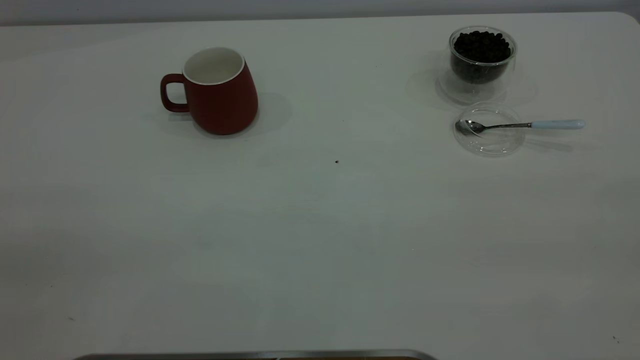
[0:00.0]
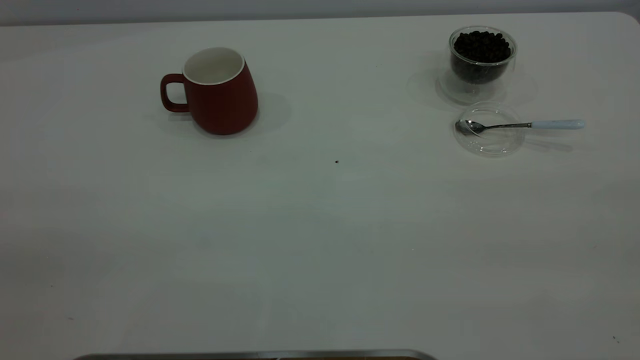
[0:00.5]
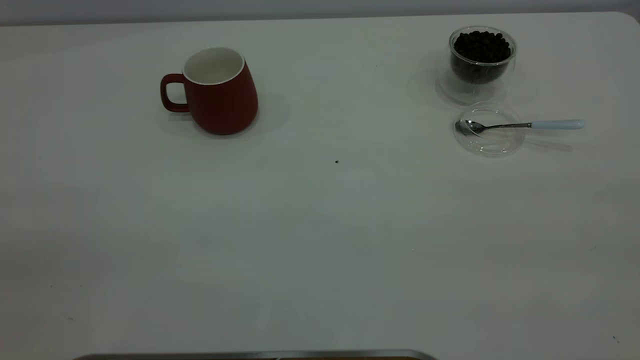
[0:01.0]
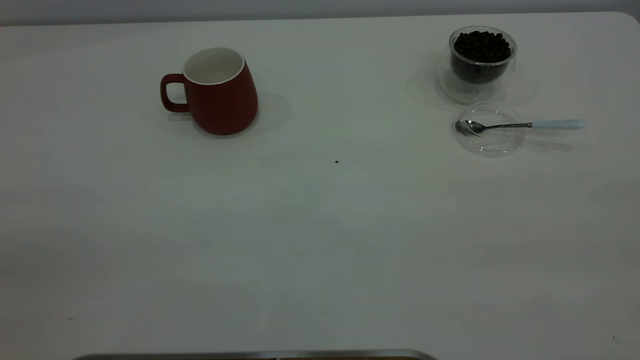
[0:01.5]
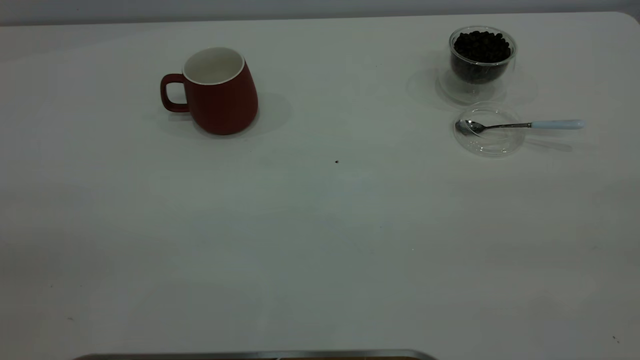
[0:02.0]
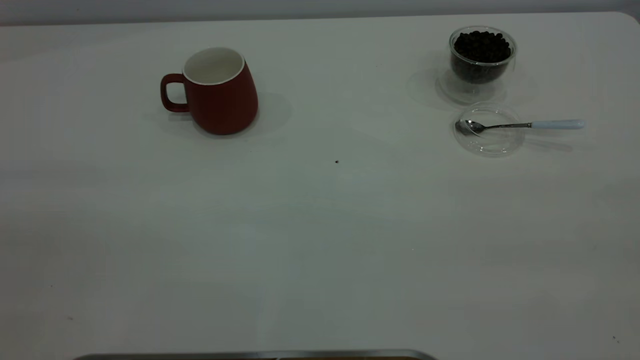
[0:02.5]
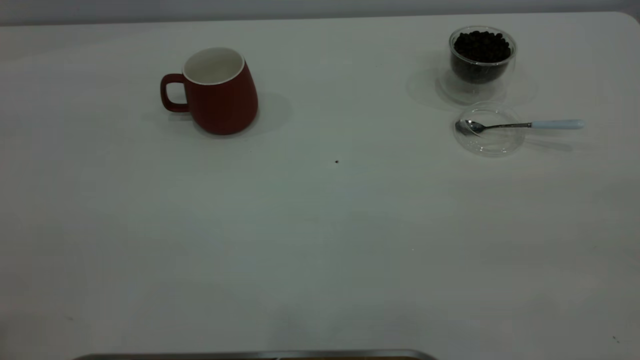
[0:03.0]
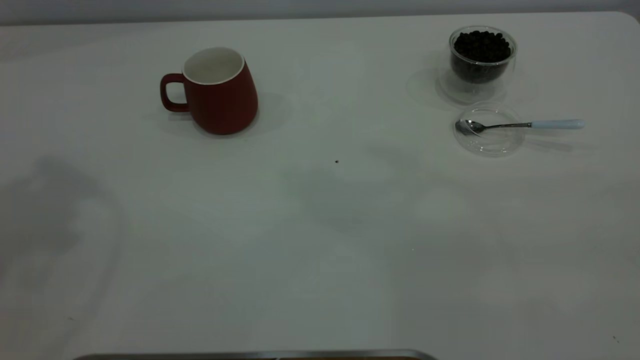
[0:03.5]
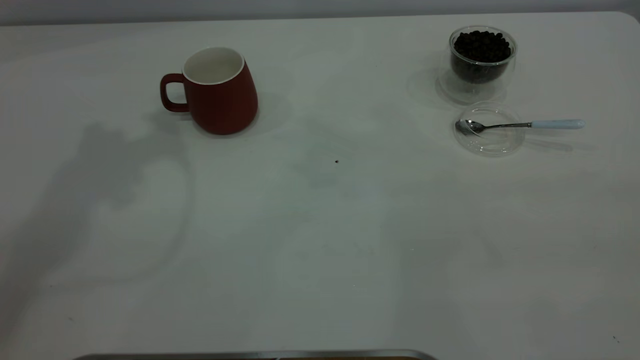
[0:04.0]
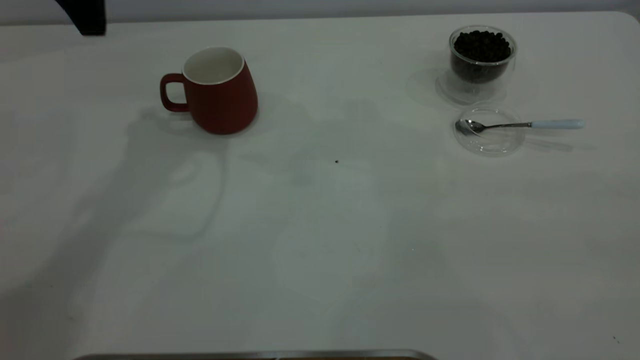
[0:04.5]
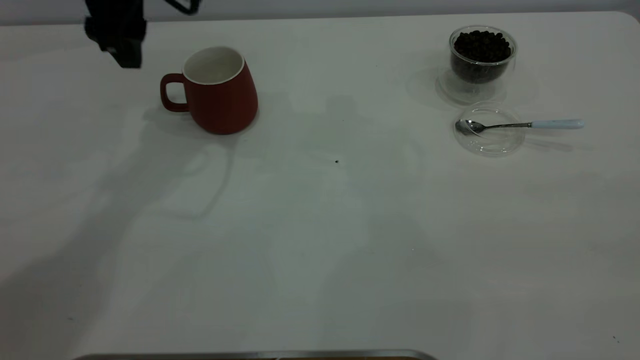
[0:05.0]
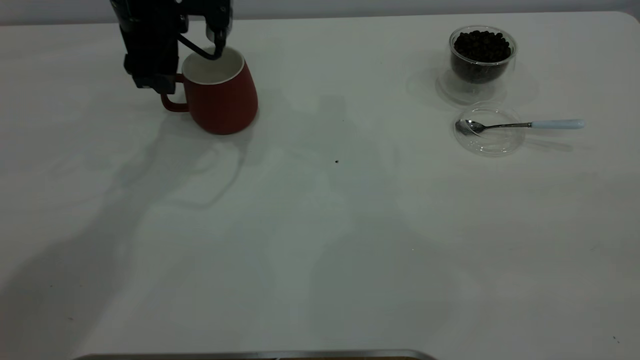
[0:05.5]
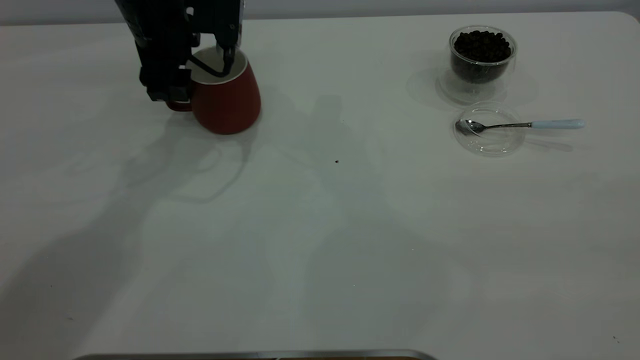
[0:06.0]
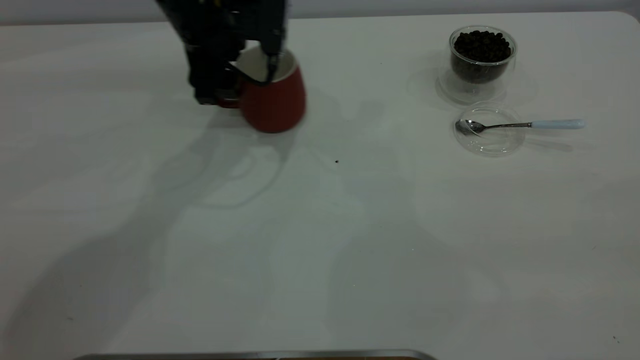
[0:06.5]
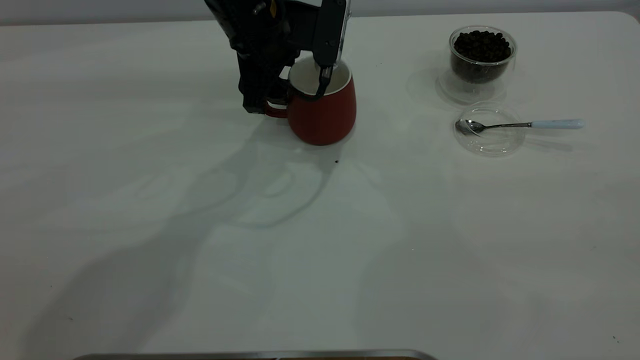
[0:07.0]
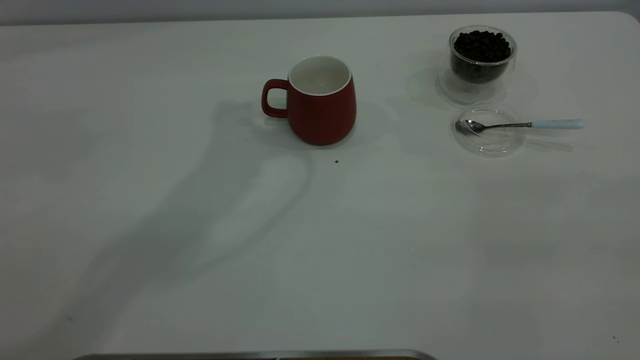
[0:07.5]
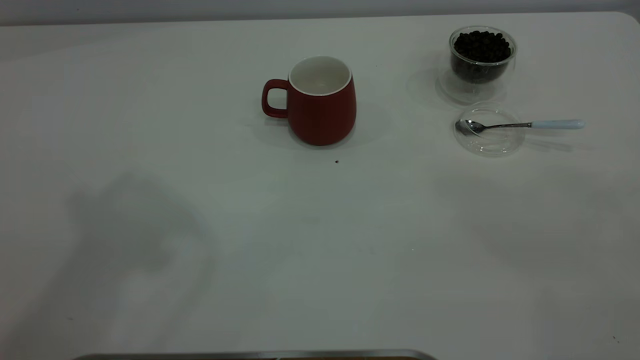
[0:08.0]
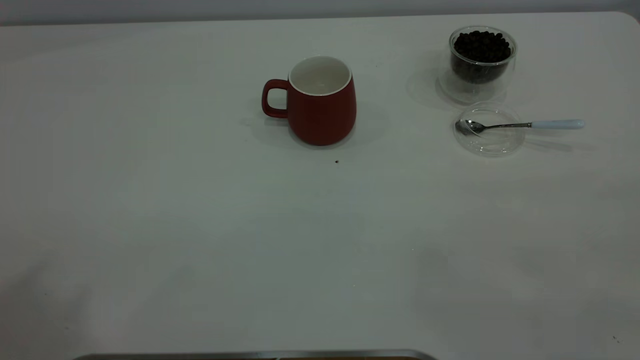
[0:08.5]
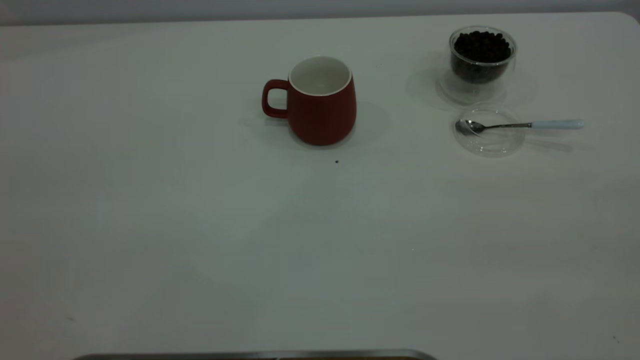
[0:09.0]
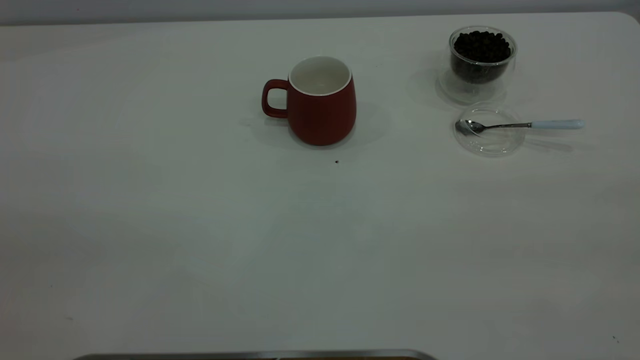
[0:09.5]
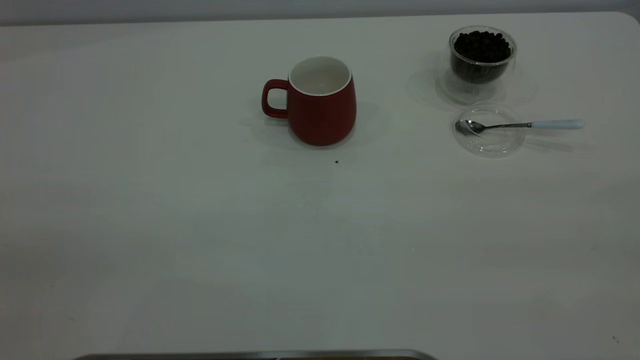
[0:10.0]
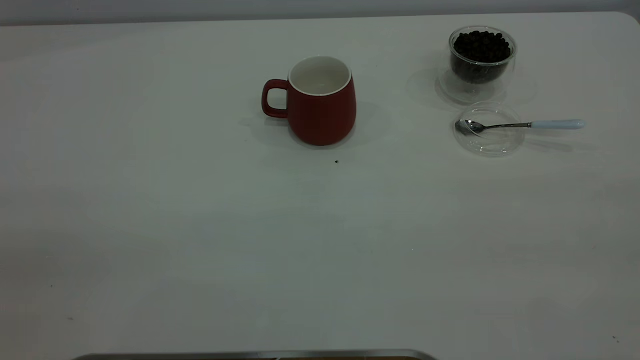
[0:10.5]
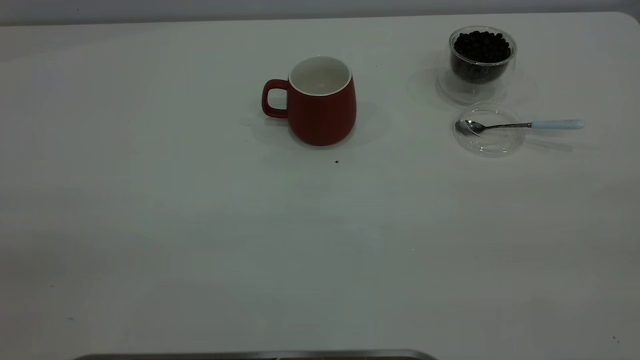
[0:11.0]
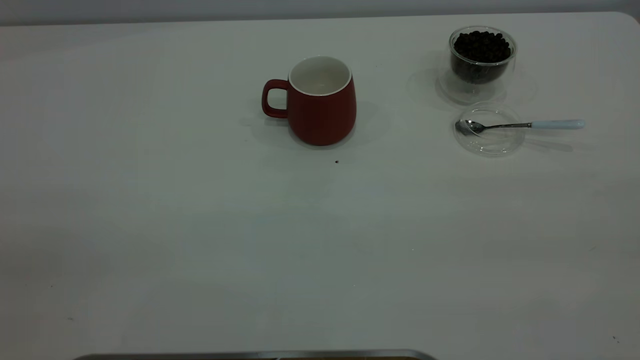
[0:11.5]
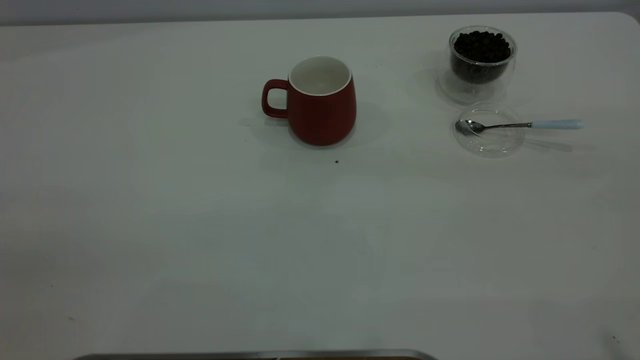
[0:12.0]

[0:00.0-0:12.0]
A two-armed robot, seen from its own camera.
Task of the whole recording: the left gripper place the red cup in the center of the table, the right gripper take the blue spoon from the cup lid and scoop out the coffee beans from the coffee cup and put them into the red cup, the right gripper put the spoon back into the cup lid.
Step, 0:00.0 to 0:07.0: Move the cup to the center of view.
0:00.0 to 0:02.0: Neither gripper changes place.
0:04.0 to 0:06.0: The left gripper goes about 25 cm downward.
0:06.0 to 0:08.0: The left gripper shifts approximately 50 cm upward and backward.

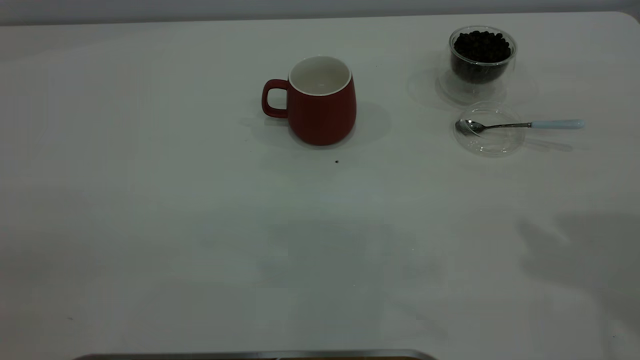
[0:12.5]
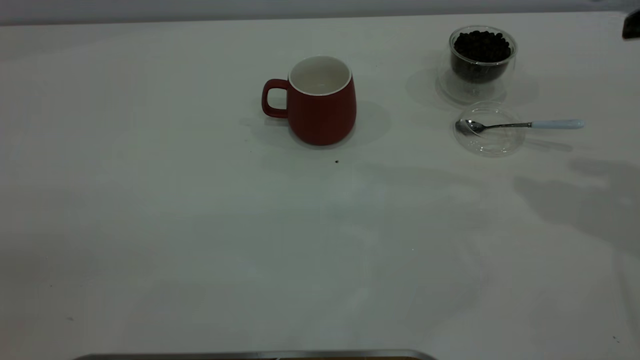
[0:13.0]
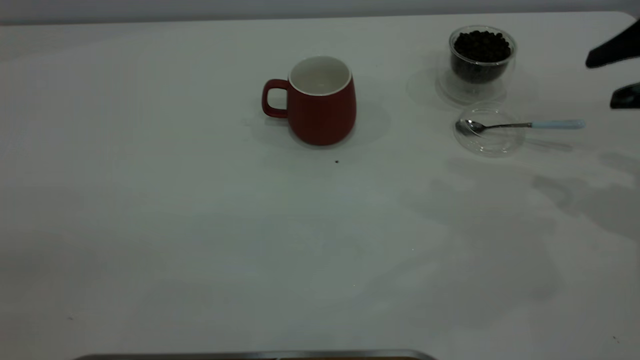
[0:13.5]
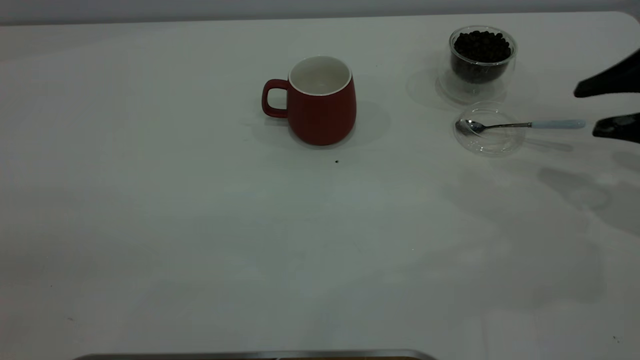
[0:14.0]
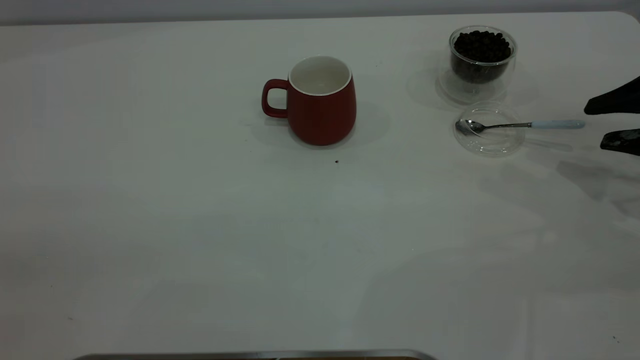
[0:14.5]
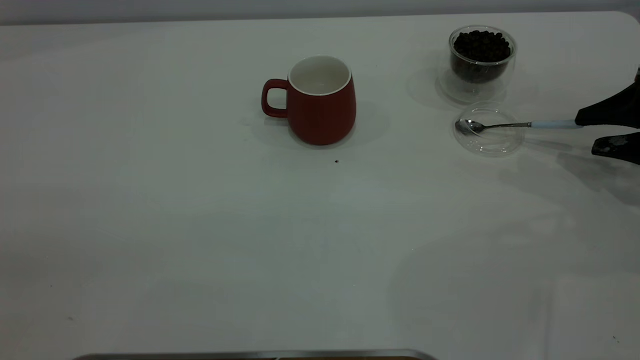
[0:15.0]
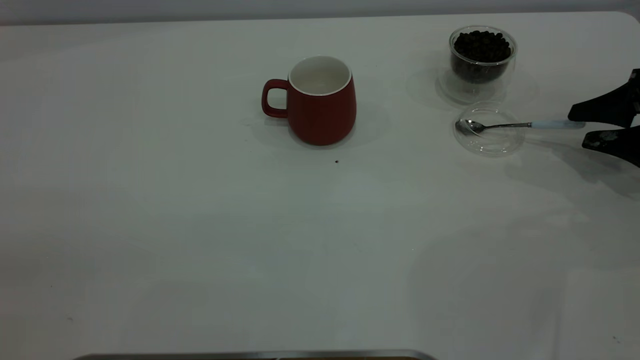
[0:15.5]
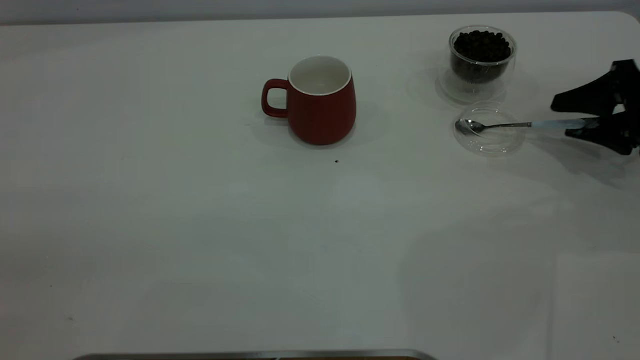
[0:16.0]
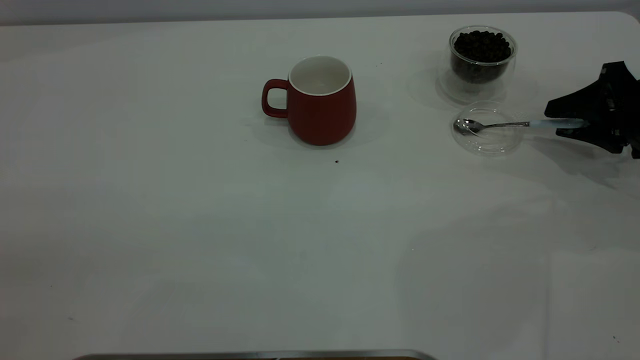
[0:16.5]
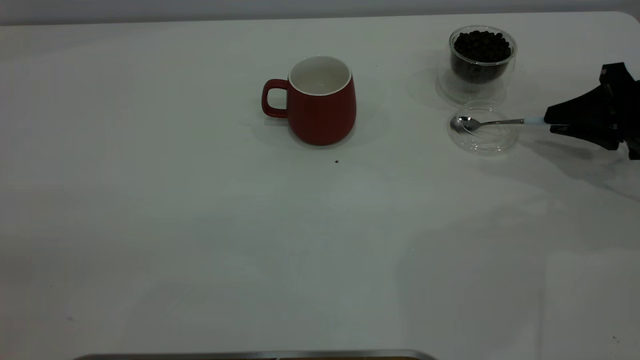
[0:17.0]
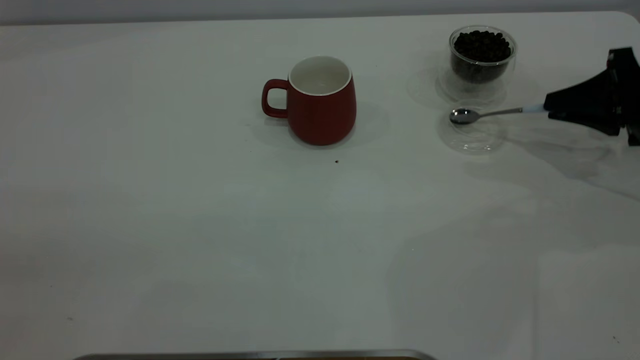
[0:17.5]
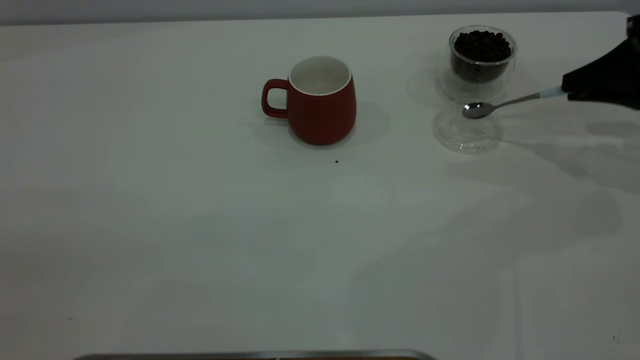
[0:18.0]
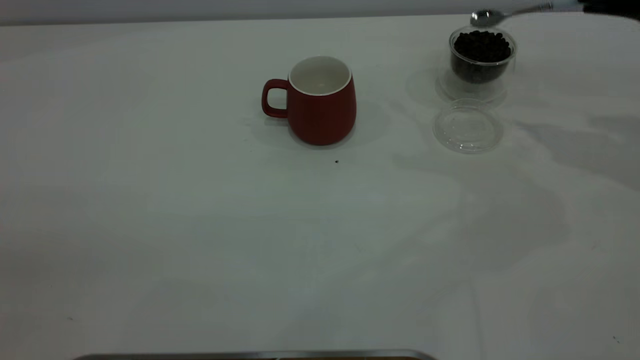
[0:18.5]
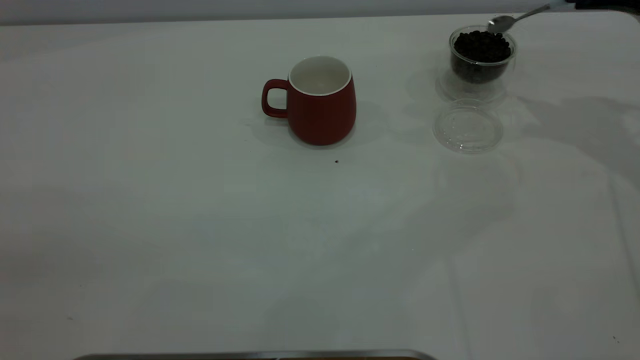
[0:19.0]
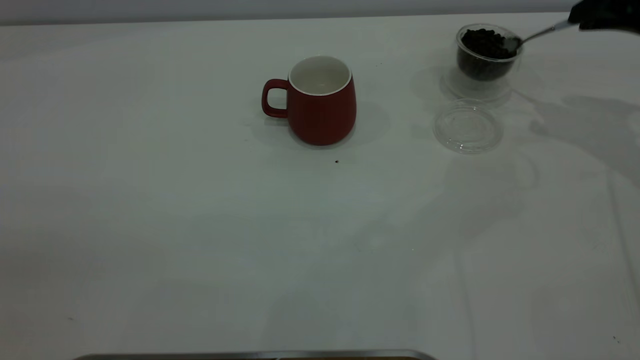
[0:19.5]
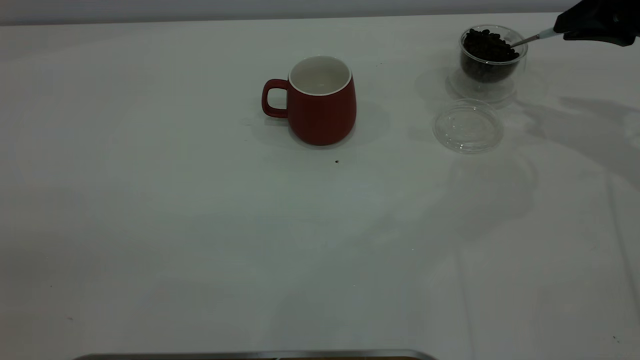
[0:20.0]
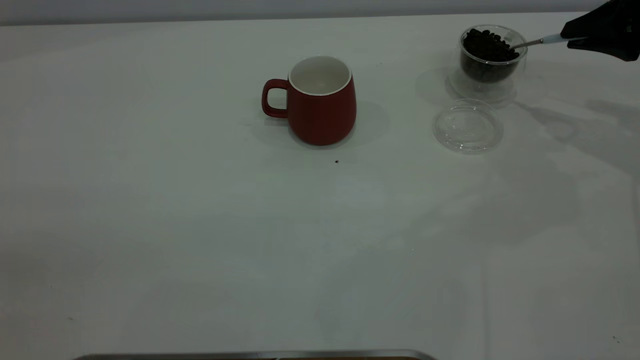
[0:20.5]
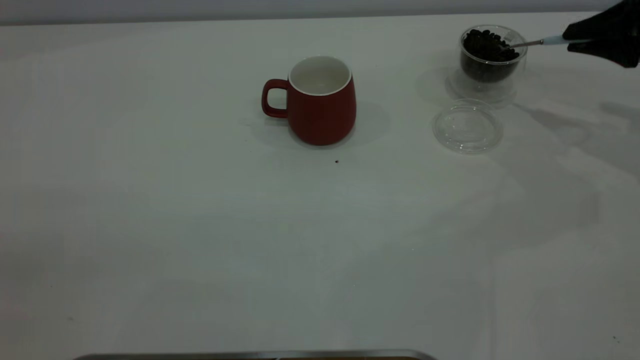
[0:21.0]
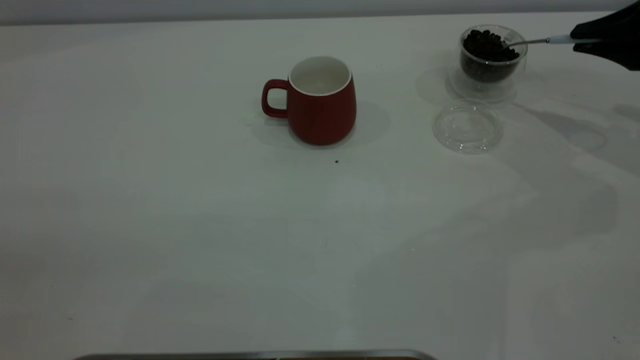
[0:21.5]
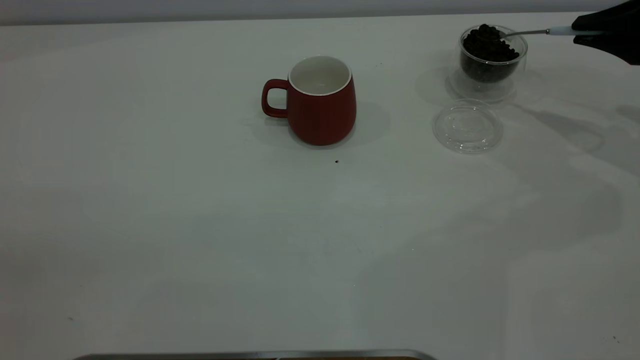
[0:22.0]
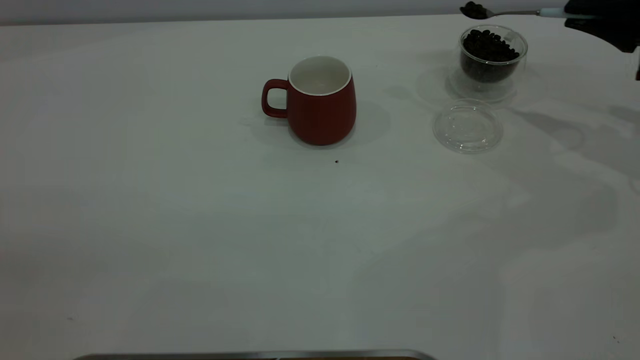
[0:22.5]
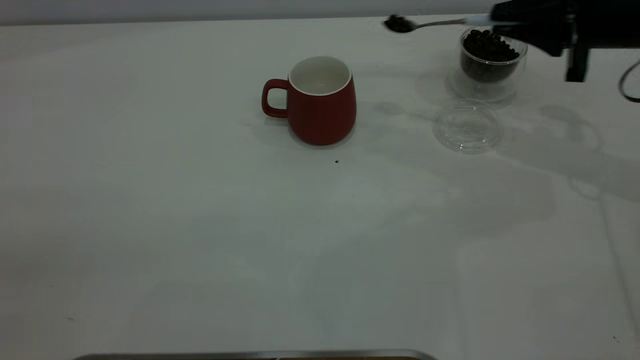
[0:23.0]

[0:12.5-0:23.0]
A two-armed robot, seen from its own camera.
Task of the whole recording: the left gripper place the red cup in the center of the table, the right gripper take the blue spoon from the cup lid and scoop out the coffee beans from the coffee cup and put them into the red cup, the right gripper put the spoon back into the cup lid.
Step, 0:12.5 to 0:18.0: Pick up the spoon.
0:12.5 to 0:14.5: The right gripper heads downward, to the right and forward, covering about 25 cm.
0:14.5 to 0:16.5: The right gripper ends up about 5 cm from where it was, and closes.
0:16.5 to 0:19.0: The right gripper shifts approximately 15 cm upward, and closes up.
0:19.0 to 0:21.0: The right gripper is displaced downward by approximately 5 cm.
0:21.0 to 0:23.0: The right gripper shifts roughly 10 cm to the left.
